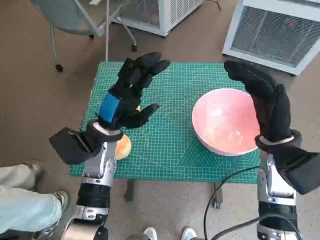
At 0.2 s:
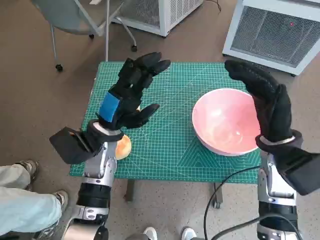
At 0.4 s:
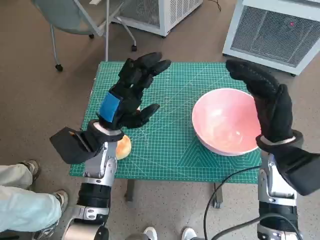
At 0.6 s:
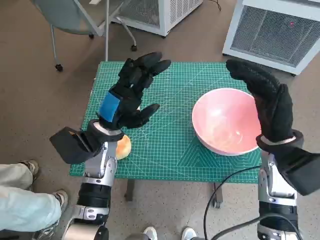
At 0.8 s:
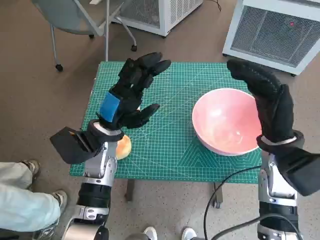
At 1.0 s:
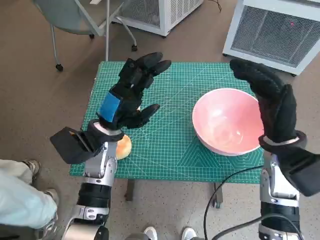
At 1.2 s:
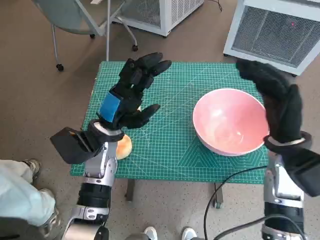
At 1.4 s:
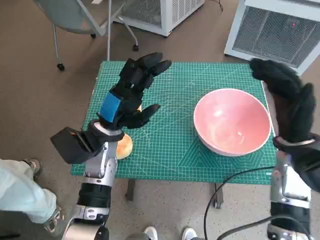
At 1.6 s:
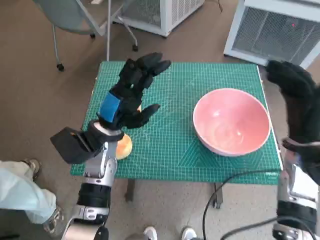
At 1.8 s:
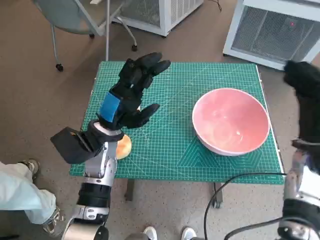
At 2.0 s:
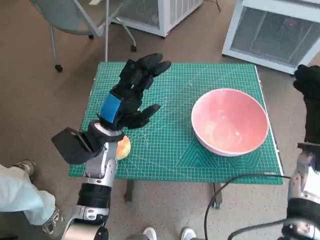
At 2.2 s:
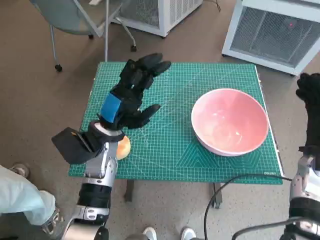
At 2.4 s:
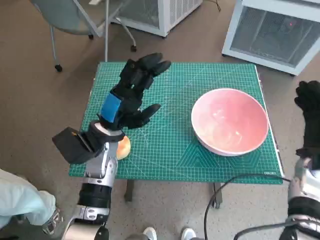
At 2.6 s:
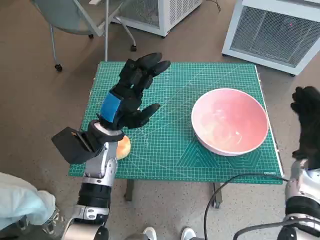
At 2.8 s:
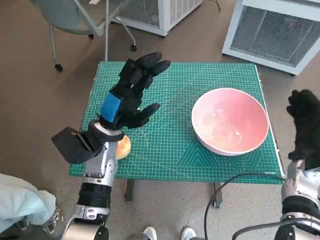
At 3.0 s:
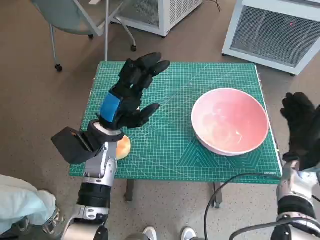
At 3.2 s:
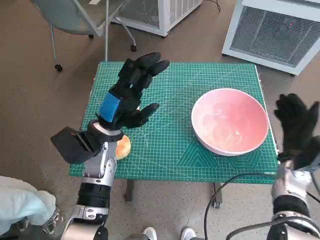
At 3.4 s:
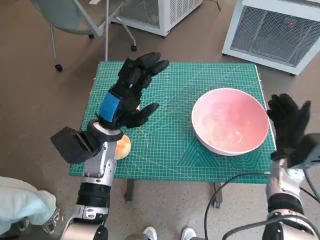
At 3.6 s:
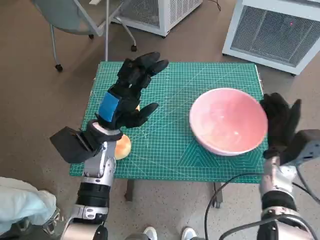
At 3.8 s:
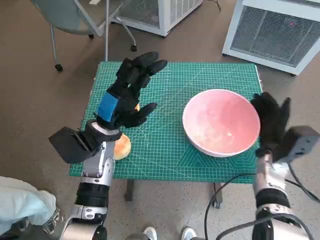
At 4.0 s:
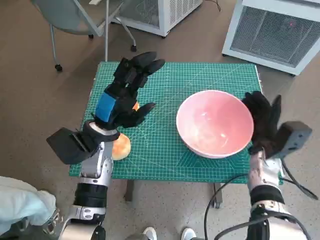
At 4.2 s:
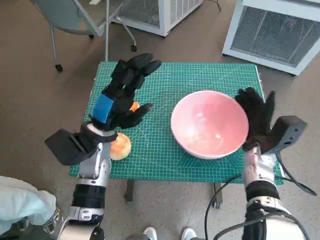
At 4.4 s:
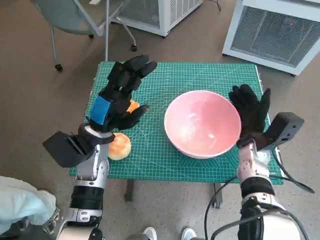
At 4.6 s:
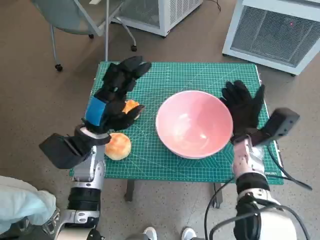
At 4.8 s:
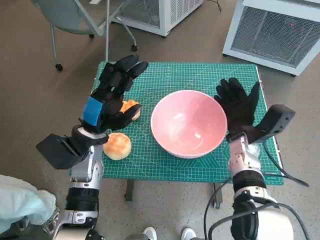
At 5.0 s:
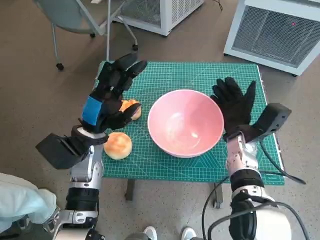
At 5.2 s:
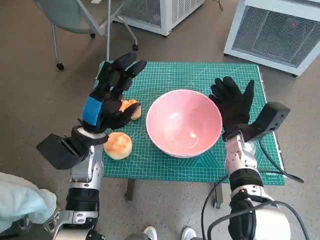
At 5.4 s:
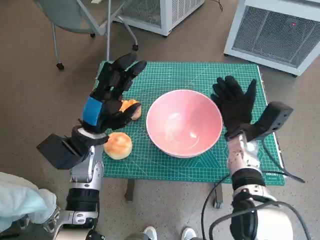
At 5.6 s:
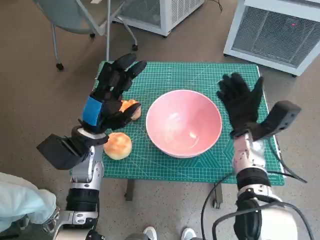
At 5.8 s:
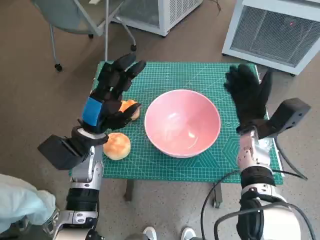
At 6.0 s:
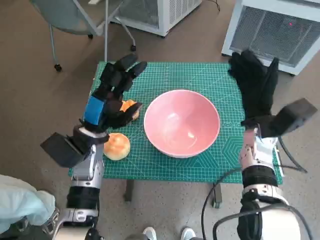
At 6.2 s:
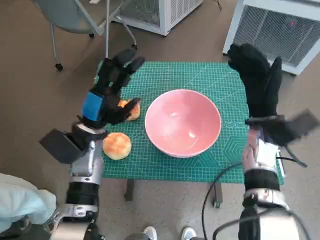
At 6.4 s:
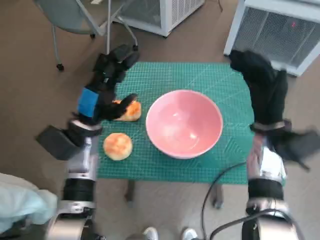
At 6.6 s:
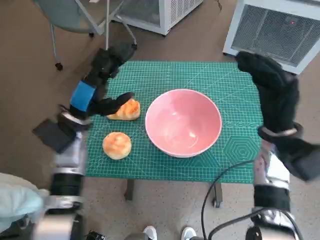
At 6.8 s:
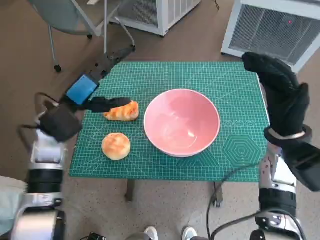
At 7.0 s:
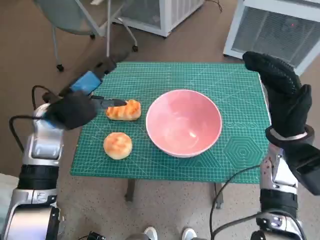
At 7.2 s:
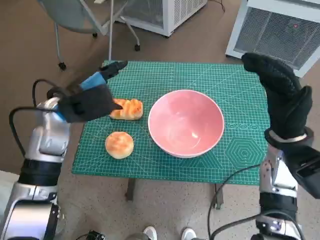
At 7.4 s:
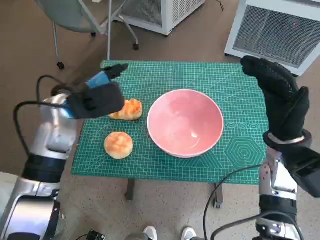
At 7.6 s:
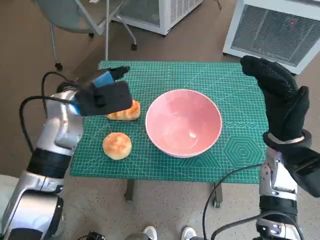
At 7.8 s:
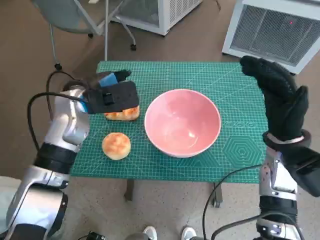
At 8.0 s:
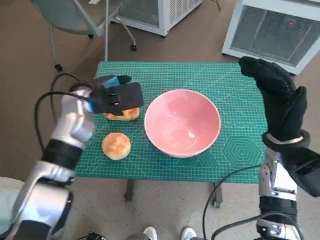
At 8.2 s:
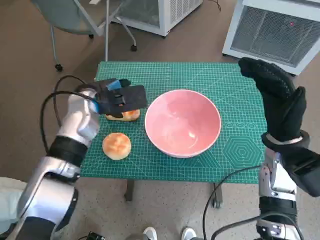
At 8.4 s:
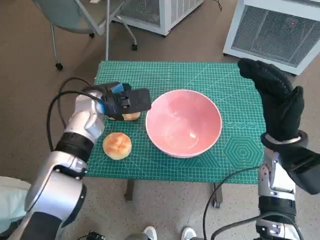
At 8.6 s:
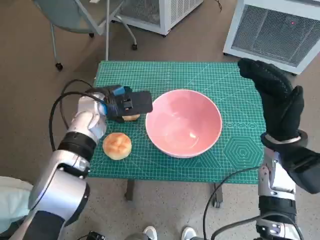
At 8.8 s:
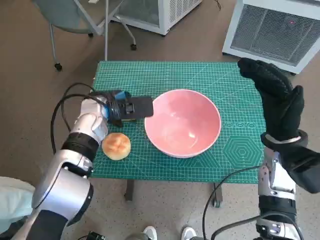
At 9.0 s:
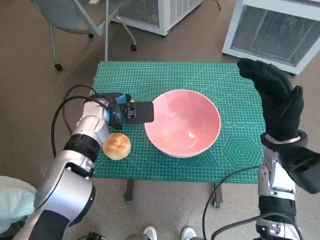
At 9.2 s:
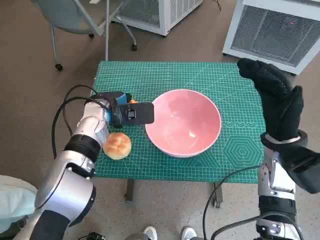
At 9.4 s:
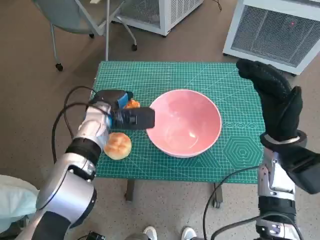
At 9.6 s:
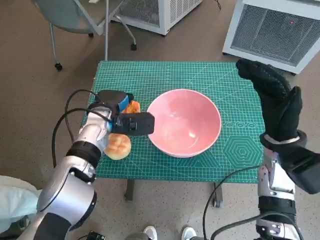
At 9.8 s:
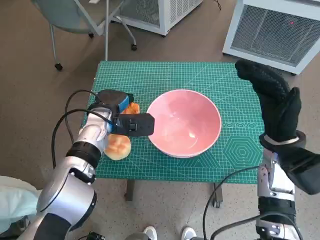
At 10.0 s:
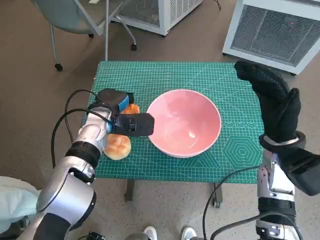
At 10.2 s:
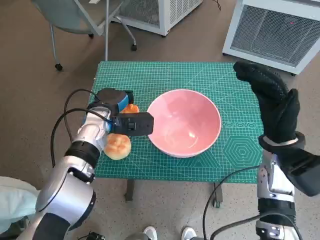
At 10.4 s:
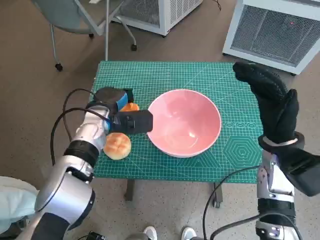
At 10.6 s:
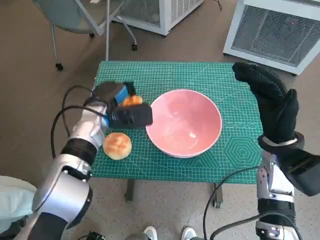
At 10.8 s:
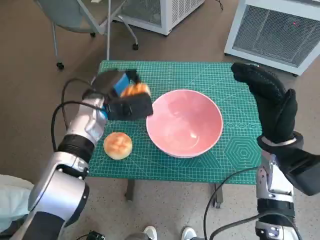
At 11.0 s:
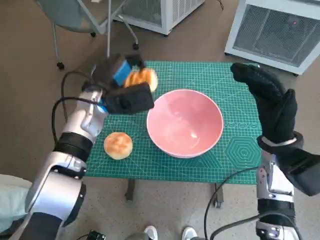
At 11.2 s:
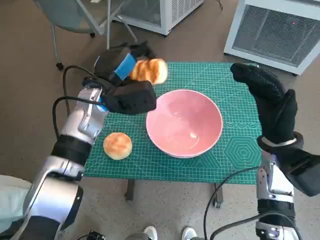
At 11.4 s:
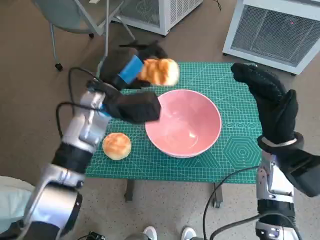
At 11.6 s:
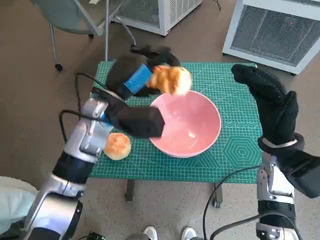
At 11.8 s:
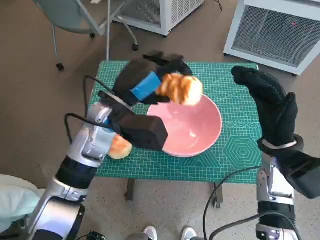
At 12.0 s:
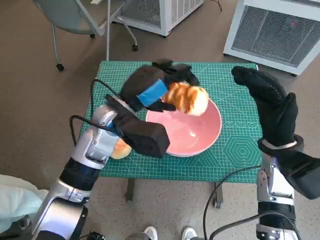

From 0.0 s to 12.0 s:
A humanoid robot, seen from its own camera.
Task of the whole recording: Push the bowl into the center of the table and put the bread into the bowl.
Step, from 0.0 s to 5.4 s: Move the pink bowl to the center of table with right hand.
Step, from 5.6 s to 10.2 s: Grasp the long bread with left hand.
From 1.6 s to 3.0 s: The right hand travels downward by some 10 cm.
From 3.0 s to 4.4 s: The right hand moves to the left, some 10 cm.
From 4.4 s to 6.0 s: The right hand heads upward, covering about 5 cm.
From 6.0 s to 7.6 s: The left hand heads upward, covering about 10 cm, while the right hand shifts about 5 cm backward.
From 7.6 s to 9.0 s: The left hand travels downward by about 5 cm.
From 9.0 s to 10.4 s: The hands move only a little.
From 10.4 s to 12.0 s: The left hand moves upward and to the right, some 10 cm.

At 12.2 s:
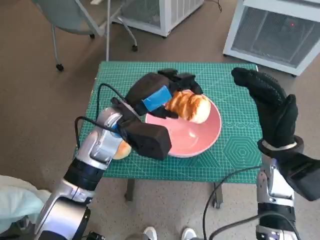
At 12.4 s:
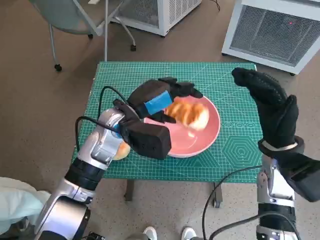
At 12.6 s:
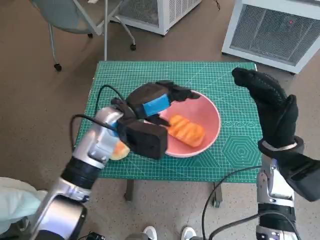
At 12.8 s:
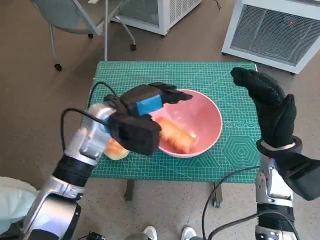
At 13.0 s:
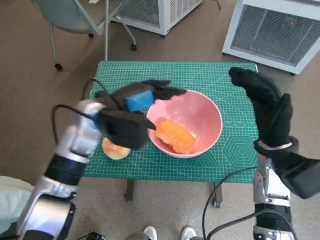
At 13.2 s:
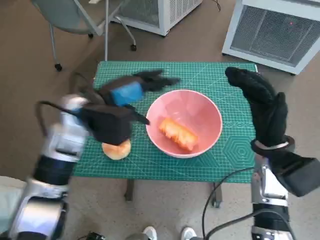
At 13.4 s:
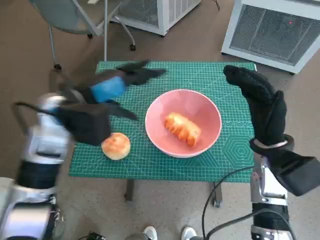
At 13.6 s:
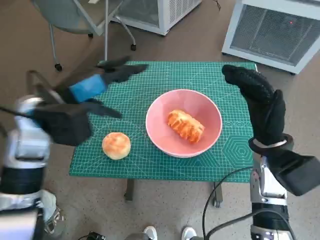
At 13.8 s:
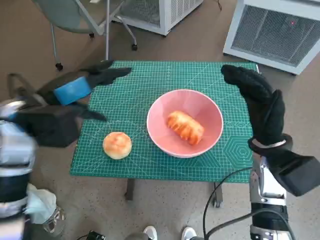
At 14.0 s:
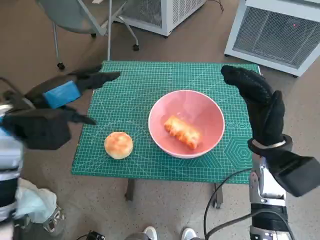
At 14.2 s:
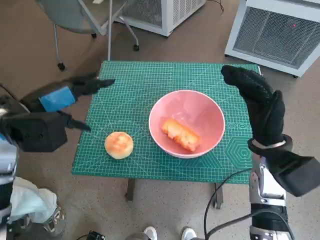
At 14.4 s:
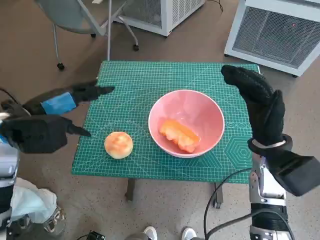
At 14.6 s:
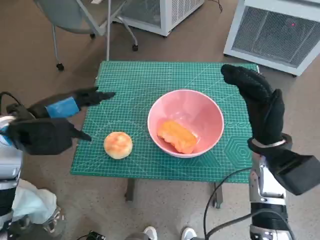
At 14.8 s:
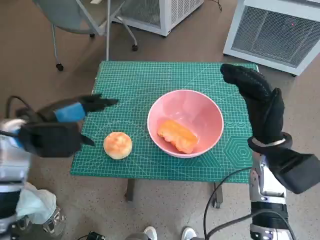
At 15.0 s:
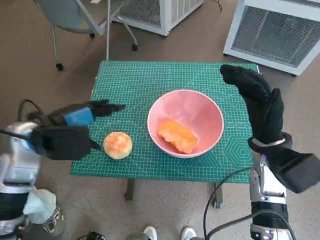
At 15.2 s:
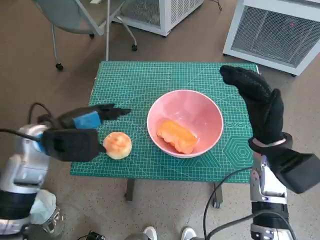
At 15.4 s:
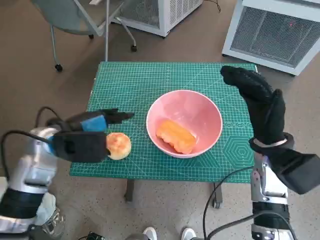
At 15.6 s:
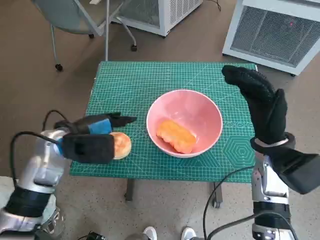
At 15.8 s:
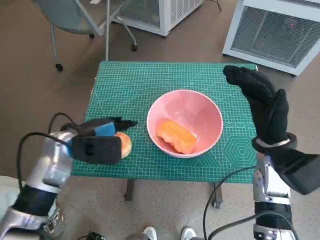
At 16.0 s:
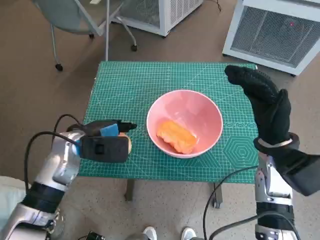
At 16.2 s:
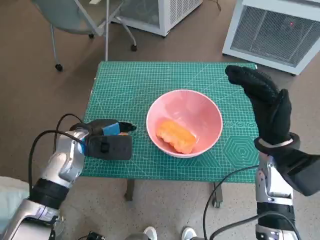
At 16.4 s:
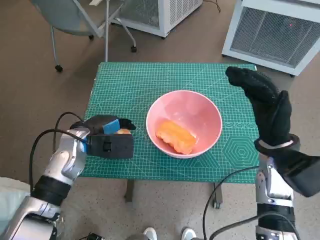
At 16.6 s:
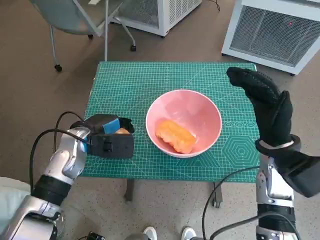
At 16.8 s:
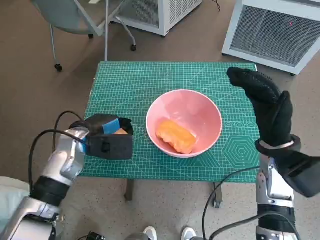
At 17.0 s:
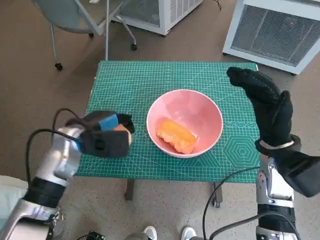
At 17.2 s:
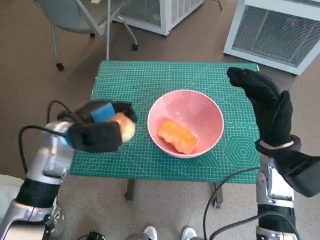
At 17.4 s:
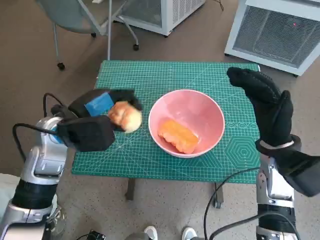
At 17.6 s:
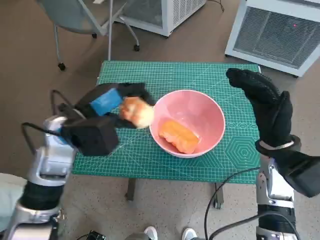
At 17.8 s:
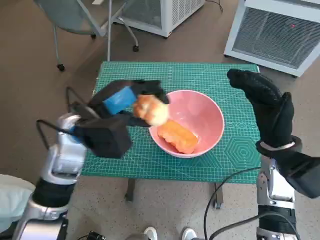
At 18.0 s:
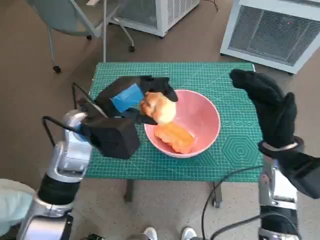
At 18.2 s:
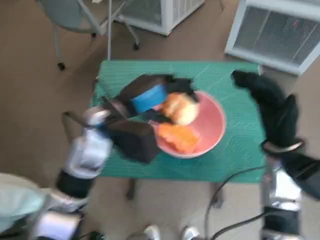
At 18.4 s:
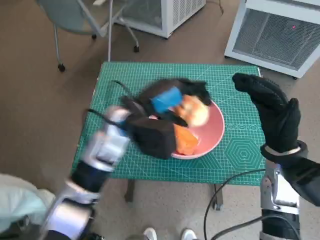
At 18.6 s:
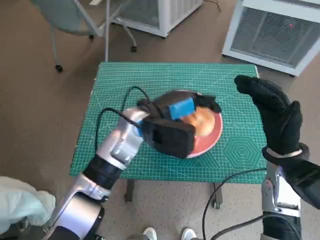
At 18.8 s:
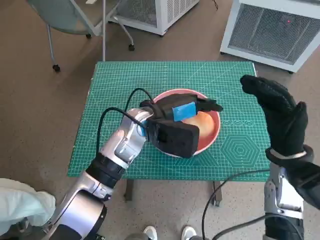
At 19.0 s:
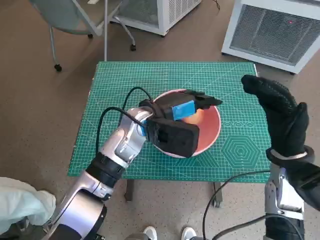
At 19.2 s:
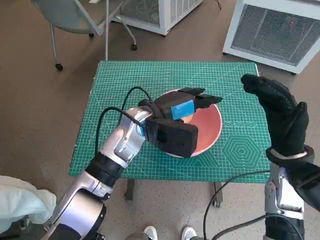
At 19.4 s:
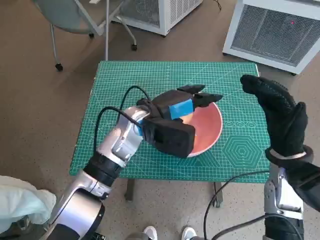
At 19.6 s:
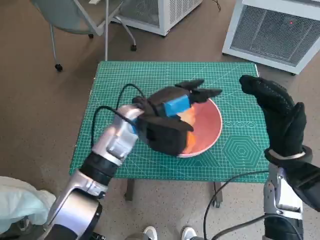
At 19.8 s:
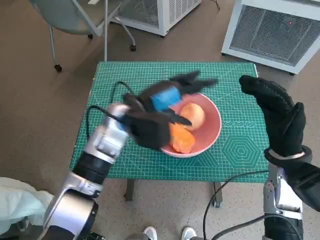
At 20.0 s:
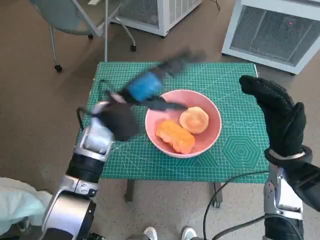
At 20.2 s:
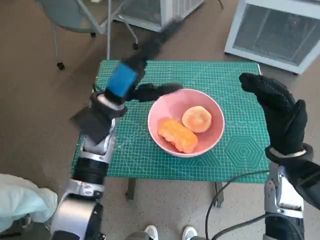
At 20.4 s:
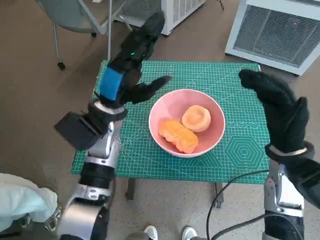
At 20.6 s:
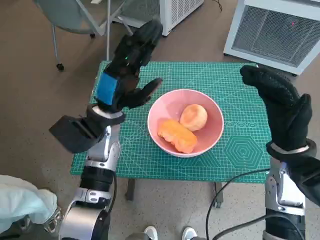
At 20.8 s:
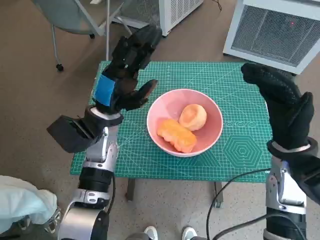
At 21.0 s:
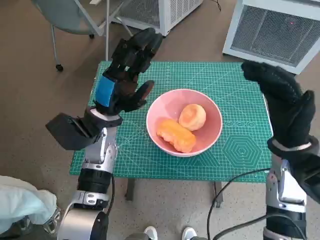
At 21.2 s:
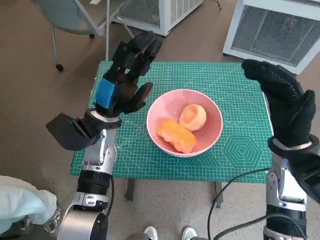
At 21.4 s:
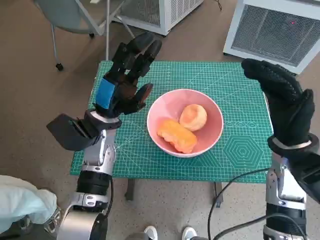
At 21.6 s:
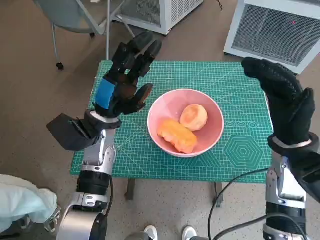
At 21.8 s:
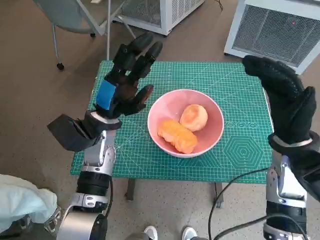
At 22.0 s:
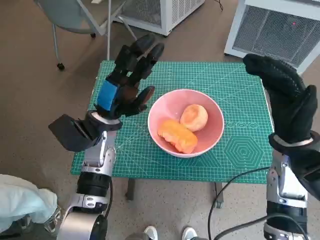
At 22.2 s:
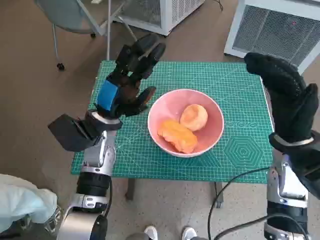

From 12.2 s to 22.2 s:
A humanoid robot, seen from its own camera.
Task of the whole recording: Push the bowl into the center of the table and put the bread into the bowl.
Step, from 12.8 s to 16.6 s: Grasp the round bread with left hand.
Step, from 16.8 s to 18.6 s: Place the round bread in pink bowl with left hand.
From 12.2 s to 13.6 s: The left hand shifts about 10 cm to the left and upward.
From 13.6 s to 15.0 s: The left hand changes place by roughly 5 cm.
From 15.0 s to 16.4 s: The left hand travels downward by roughly 10 cm.
From 16.4 s to 18.0 s: The left hand is displaced upward and to the right by roughly 10 cm.
From 18.0 s to 19.4 s: The left hand moves to the right, approximately 10 cm.
From 19.4 s to 20.8 s: The left hand heads to the left, covering some 10 cm.
From 20.8 s to 22.2 s: There are only small adjustments of the hands.
